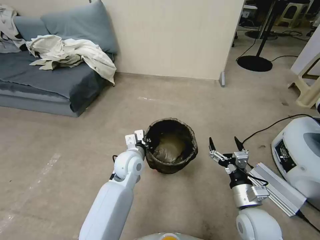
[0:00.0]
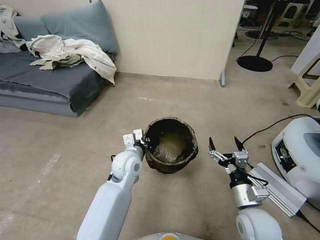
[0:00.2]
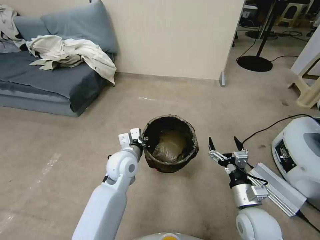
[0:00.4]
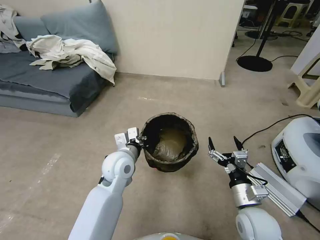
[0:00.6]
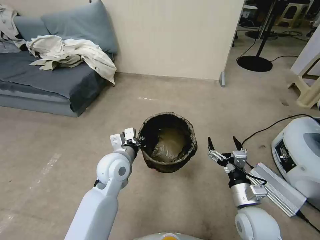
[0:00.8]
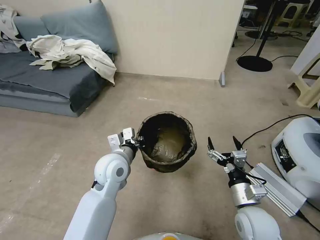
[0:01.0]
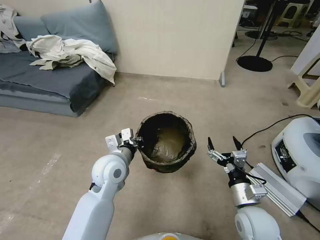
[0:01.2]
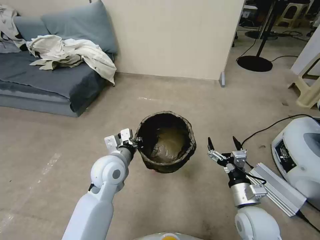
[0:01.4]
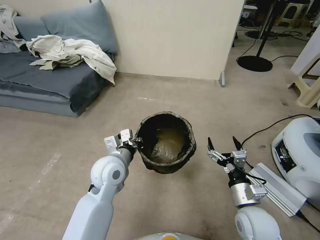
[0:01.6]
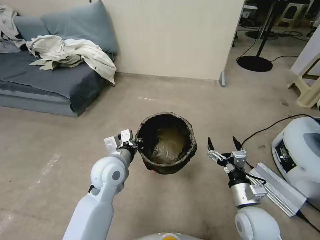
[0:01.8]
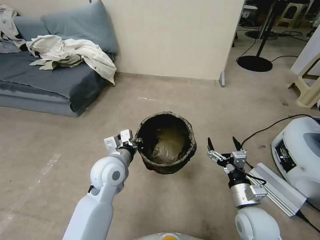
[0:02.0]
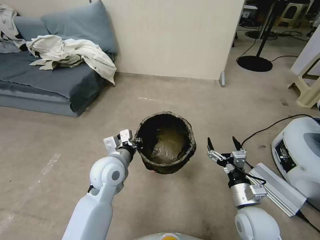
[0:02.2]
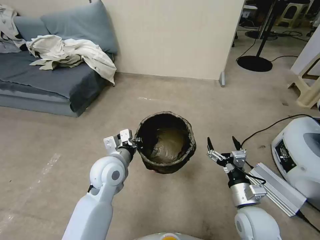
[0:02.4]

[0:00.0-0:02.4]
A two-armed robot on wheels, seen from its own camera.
Task of the whole recording: Pick up the trash can from the floor.
0:00.0 to 0:01.2: The left gripper travels upward by approximately 5 cm.
0:01.2 to 0:02.4: The two grippers keep their place.
